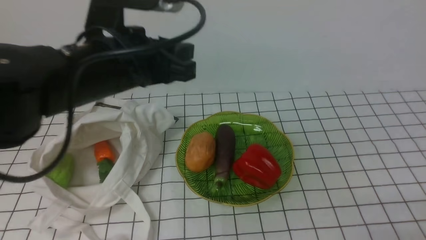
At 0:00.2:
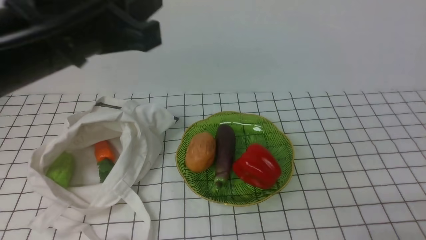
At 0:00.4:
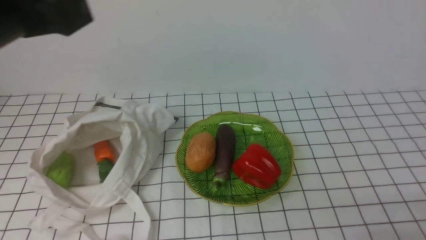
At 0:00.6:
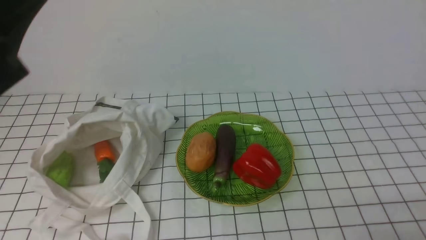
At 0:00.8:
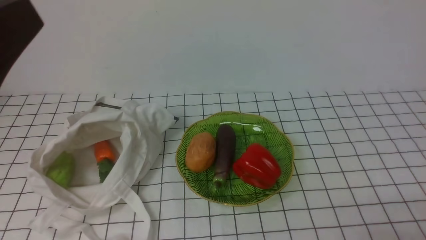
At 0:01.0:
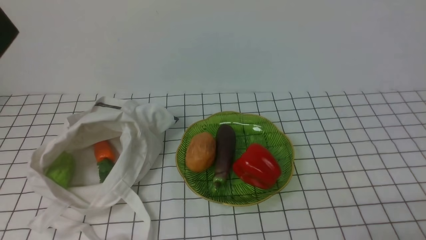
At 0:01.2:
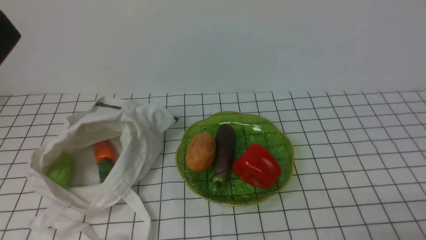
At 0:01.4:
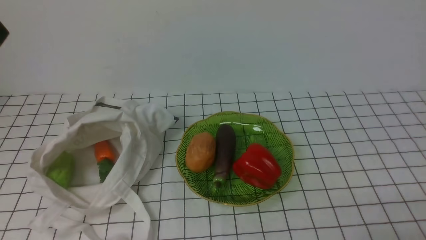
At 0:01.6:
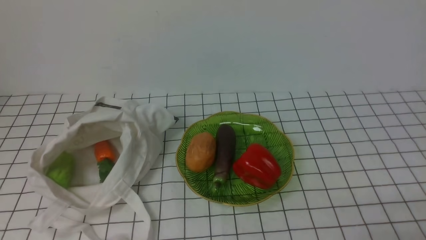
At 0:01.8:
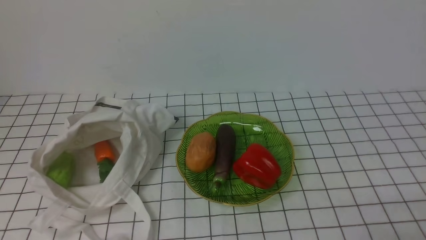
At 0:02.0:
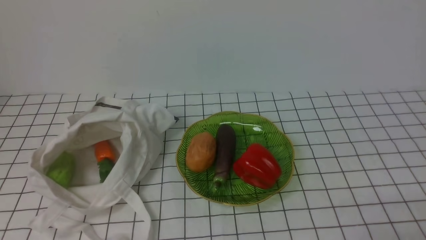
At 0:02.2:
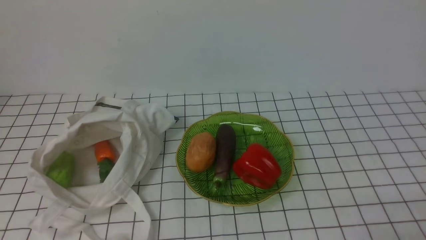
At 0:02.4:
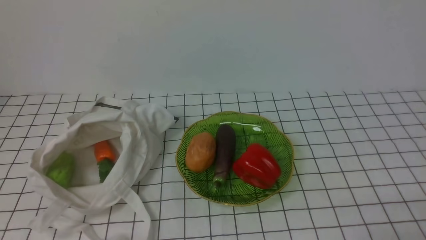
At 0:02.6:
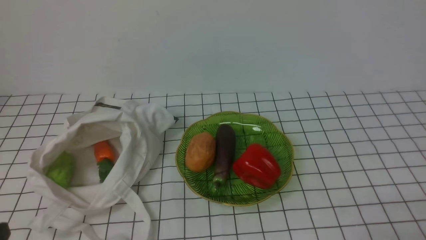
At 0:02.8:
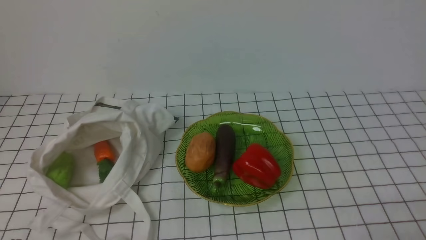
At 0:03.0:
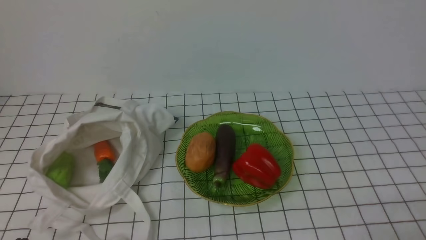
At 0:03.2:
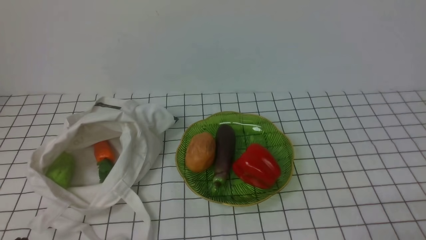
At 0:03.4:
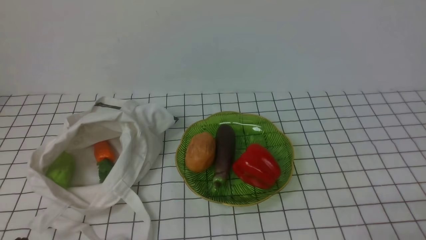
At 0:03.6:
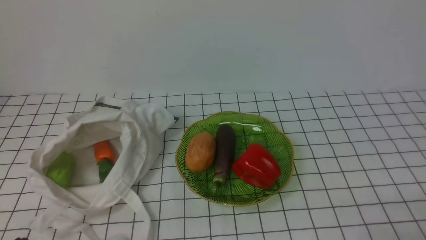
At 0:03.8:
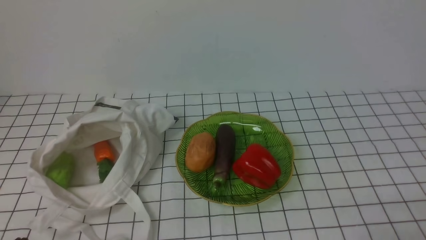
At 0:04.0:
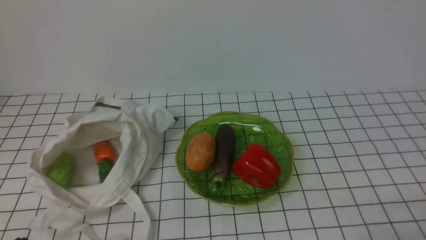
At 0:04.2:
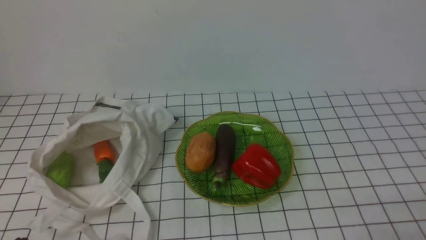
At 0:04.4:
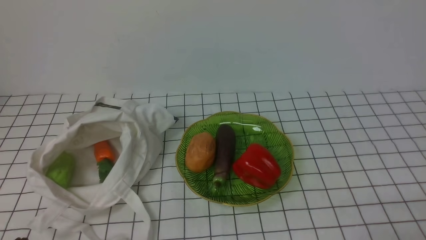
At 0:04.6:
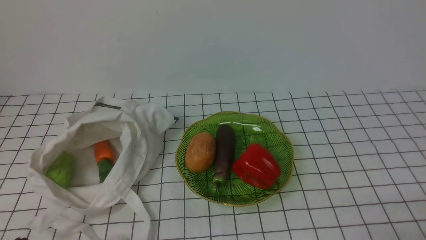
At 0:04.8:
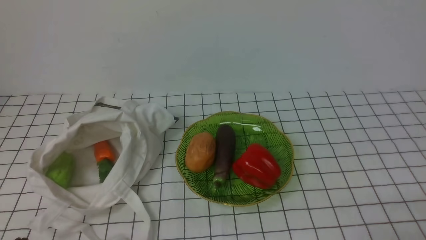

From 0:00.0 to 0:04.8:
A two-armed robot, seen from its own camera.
Task of the whole recording: take vegetables from bag on white checkered tablecloth place on plate.
From 0:00.0 to 0:01.6: The left gripper shifts roughly 25 cm backward and to the left, and closes up.
From 0:03.2 to 0:04.8: Neither gripper changes place.

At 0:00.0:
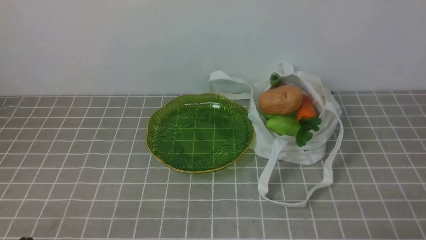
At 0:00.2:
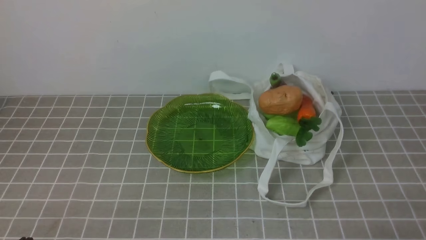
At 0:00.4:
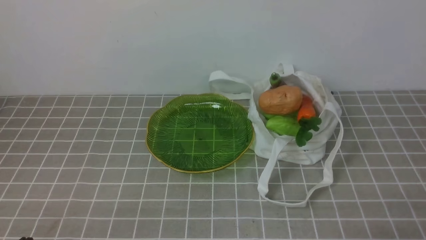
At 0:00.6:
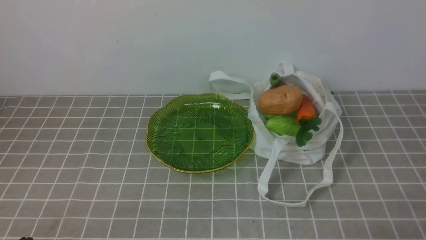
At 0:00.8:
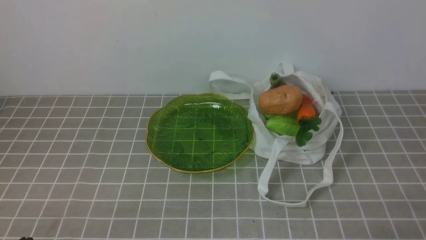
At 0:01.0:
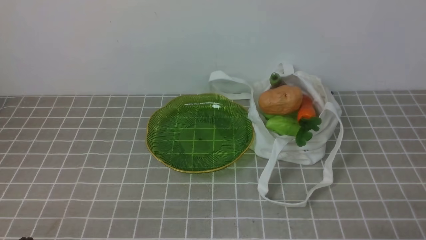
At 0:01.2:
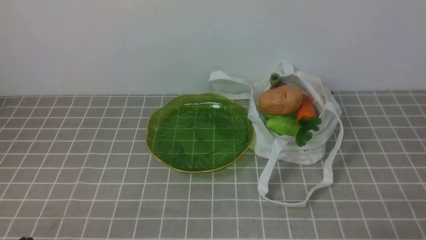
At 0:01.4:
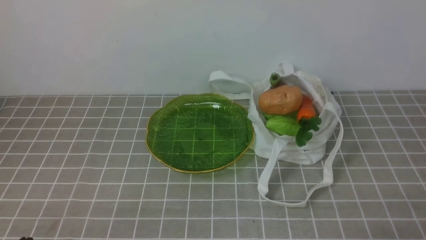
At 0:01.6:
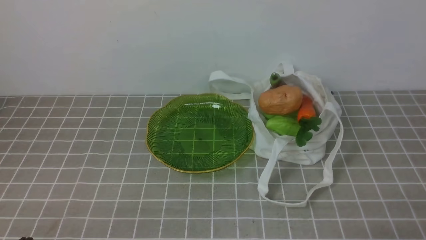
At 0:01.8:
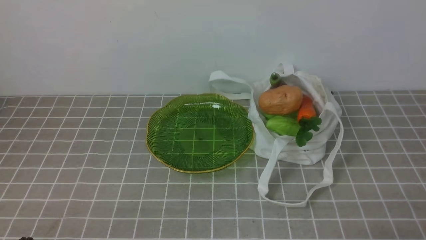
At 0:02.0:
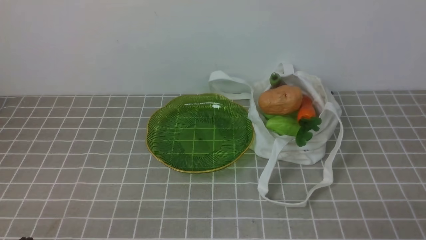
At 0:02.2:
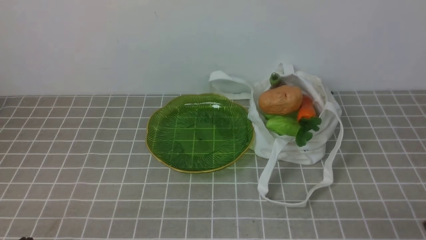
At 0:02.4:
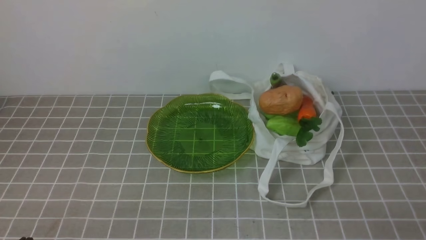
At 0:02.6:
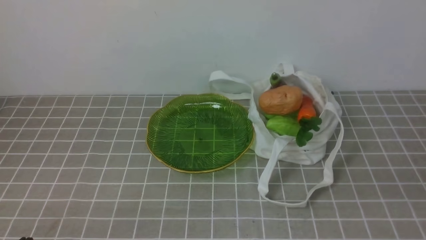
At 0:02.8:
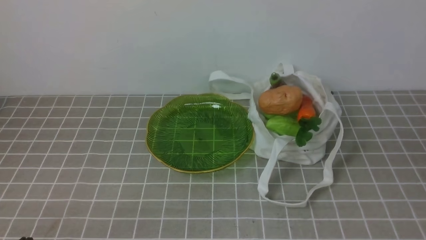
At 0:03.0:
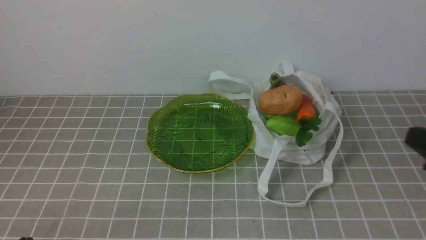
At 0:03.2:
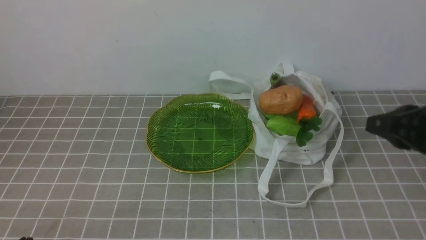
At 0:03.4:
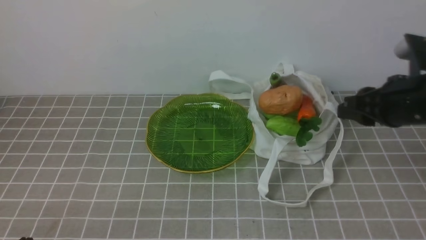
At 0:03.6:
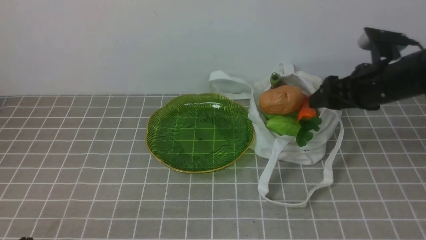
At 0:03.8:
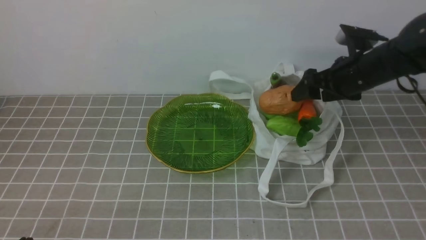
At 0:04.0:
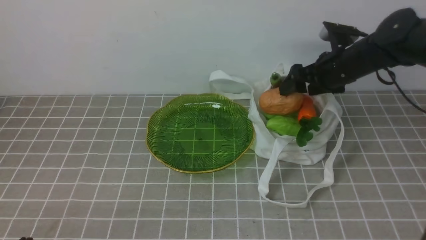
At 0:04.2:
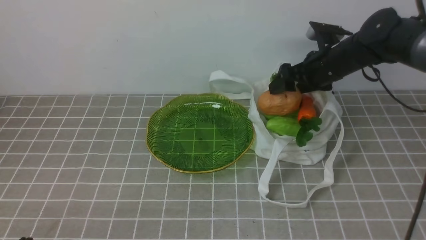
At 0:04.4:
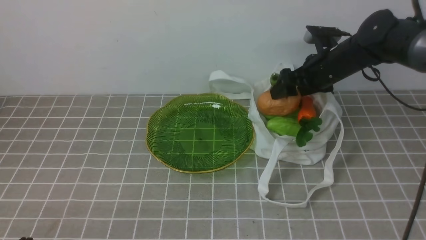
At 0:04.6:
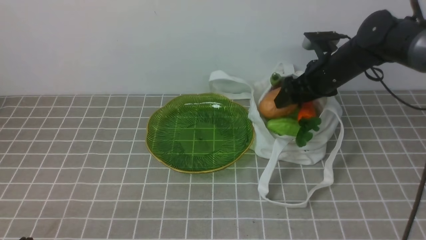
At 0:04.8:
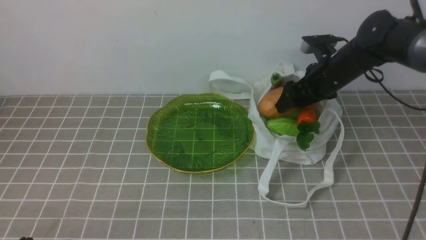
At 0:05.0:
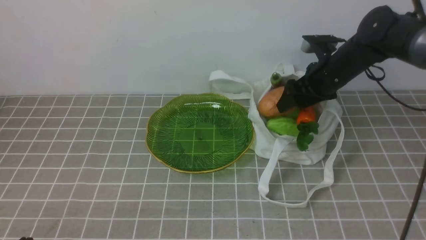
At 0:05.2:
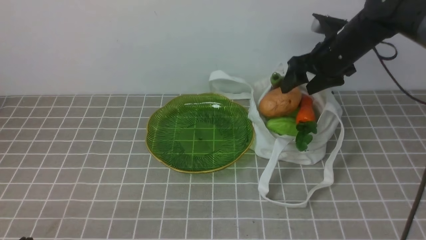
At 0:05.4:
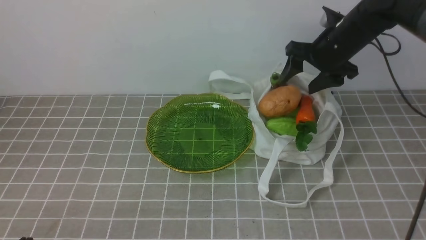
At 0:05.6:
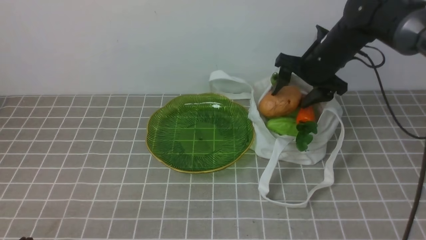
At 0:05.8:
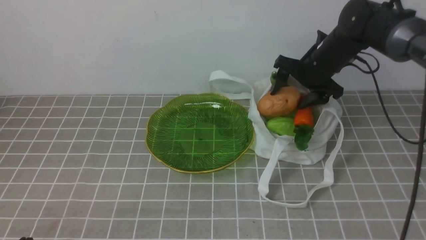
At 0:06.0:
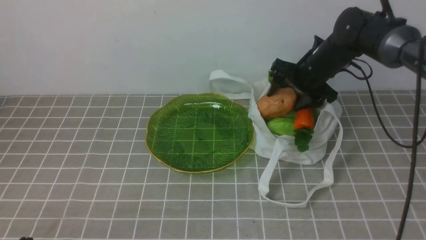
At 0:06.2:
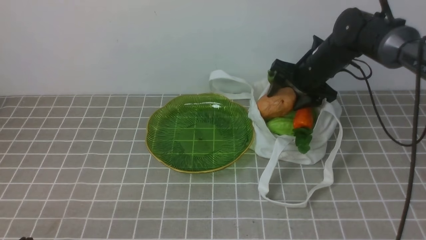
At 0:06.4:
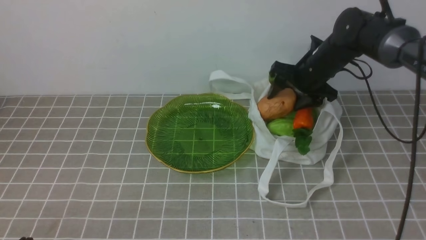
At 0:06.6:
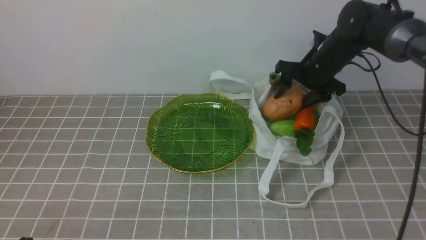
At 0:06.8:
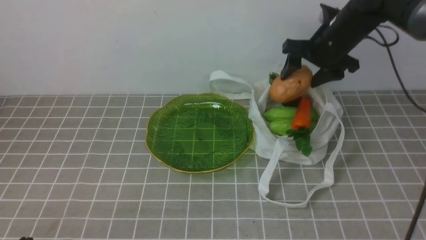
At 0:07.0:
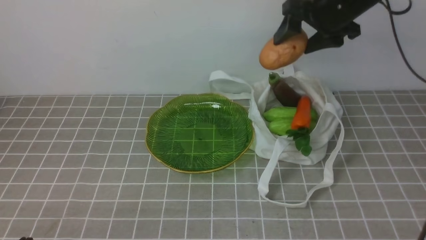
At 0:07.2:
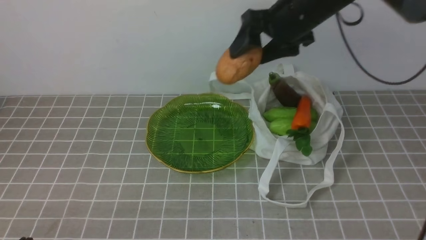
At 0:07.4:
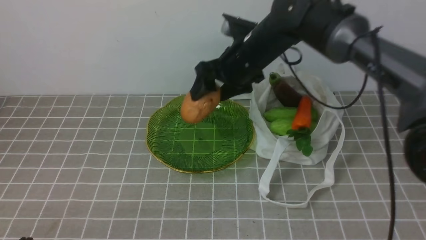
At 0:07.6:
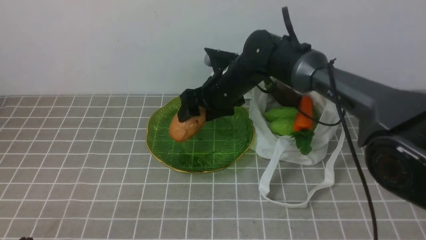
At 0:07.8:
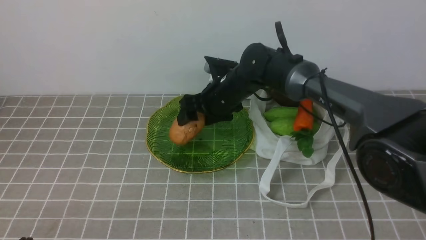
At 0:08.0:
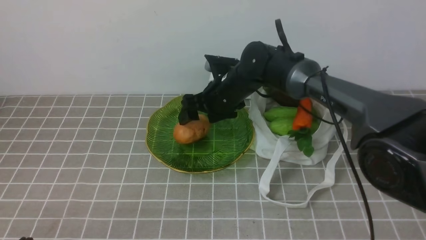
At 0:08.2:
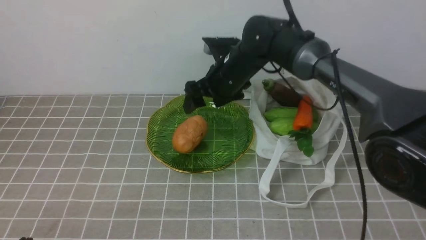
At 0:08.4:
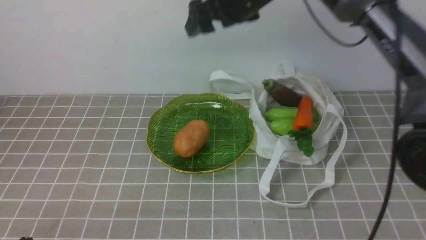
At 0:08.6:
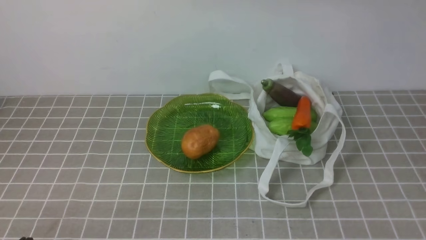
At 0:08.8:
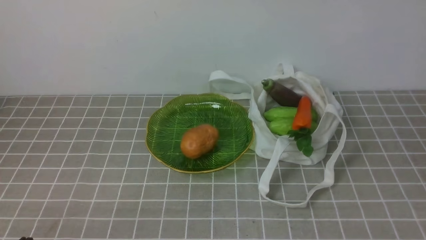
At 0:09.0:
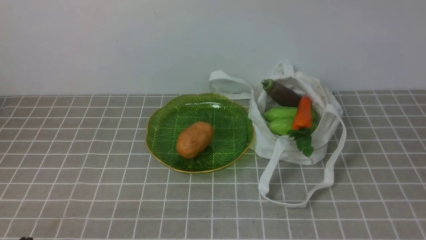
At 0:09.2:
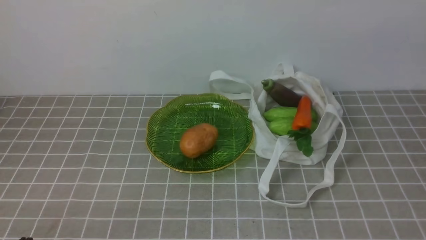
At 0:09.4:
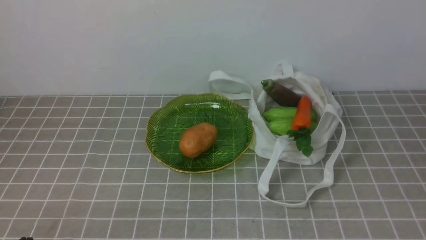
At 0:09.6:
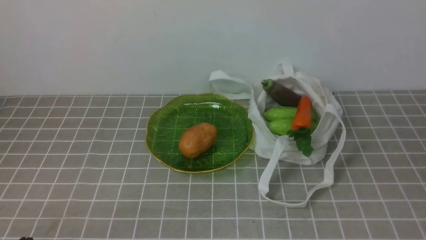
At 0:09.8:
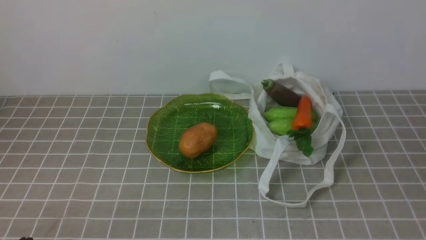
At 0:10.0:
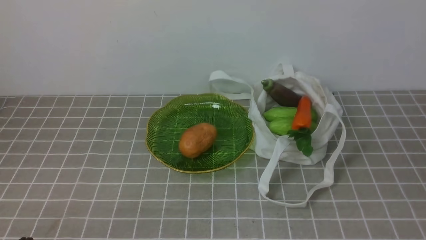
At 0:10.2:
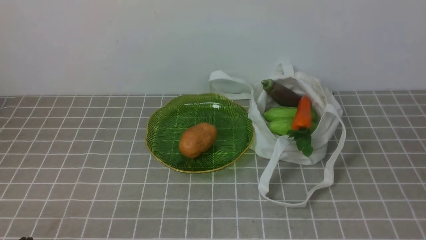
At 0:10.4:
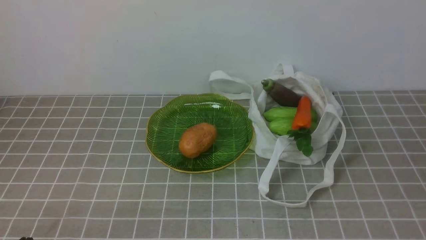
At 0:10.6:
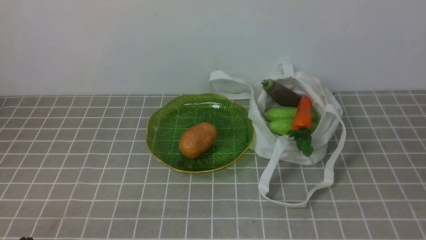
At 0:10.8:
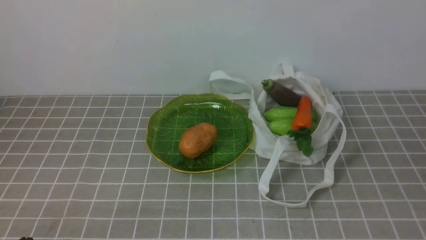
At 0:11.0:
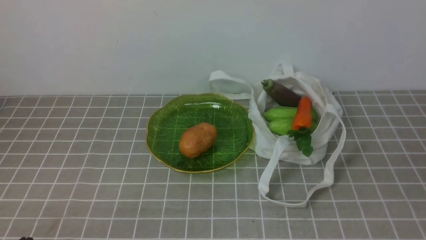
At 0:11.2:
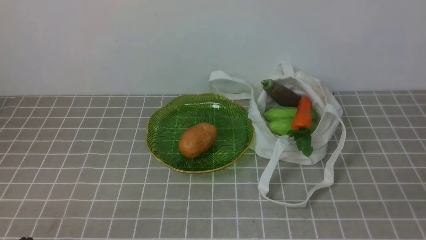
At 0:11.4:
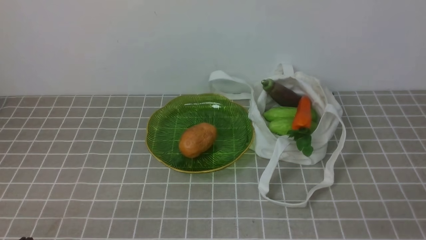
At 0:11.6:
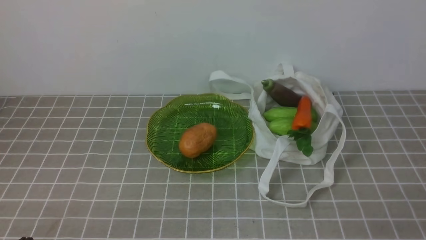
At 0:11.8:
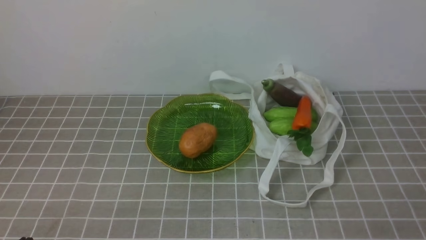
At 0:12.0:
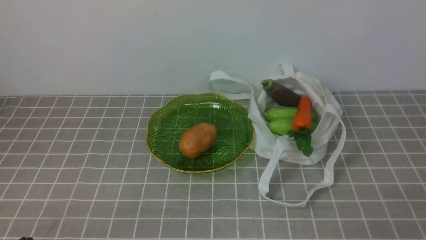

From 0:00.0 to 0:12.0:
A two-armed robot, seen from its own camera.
Task of the whole recording: take vegetables from bag on grey coffee tablecloth place on plate.
Step, from 0:00.0 to 0:06.4: Grasp the potato with right gripper.
Step, from 0:06.6 to 0:08.2: Place the potato on the plate with right gripper.
From 0:00.0 to 0:01.6: Neither gripper changes place.
From 0:03.0 to 0:04.4: The right gripper goes some 30 cm forward, and opens.
From 0:06.0 to 0:07.6: The right gripper travels to the left by some 15 cm.
From 0:07.6 to 0:09.0: The right gripper moves upward, backward and to the right, about 50 cm, and closes.
